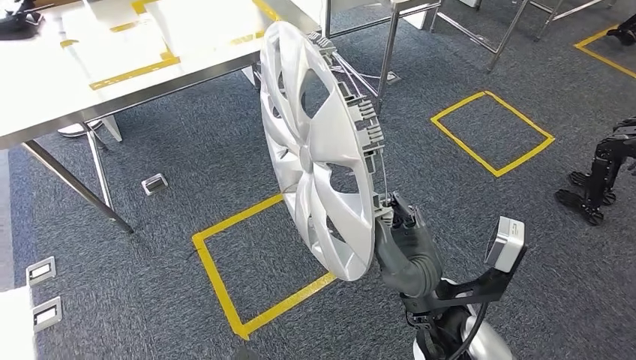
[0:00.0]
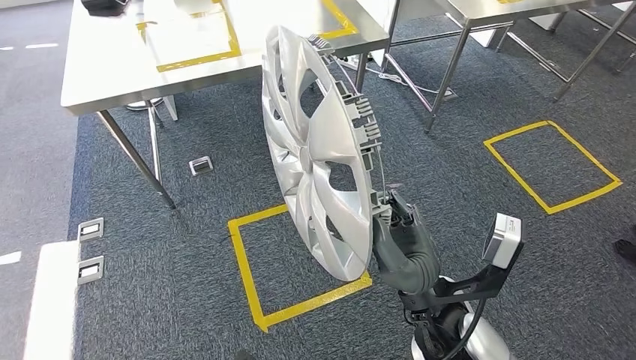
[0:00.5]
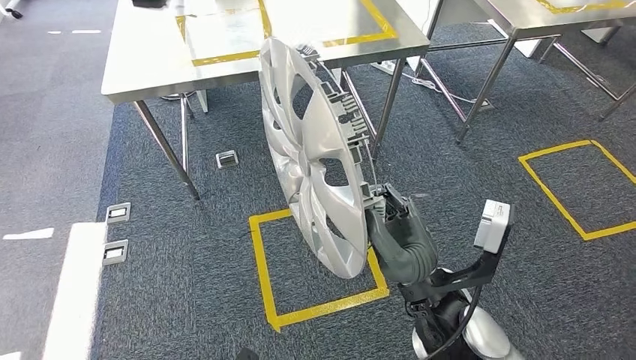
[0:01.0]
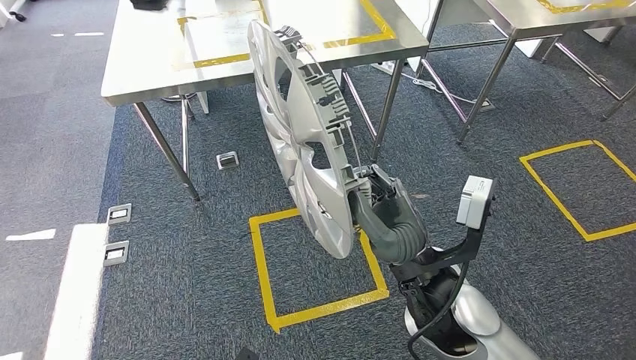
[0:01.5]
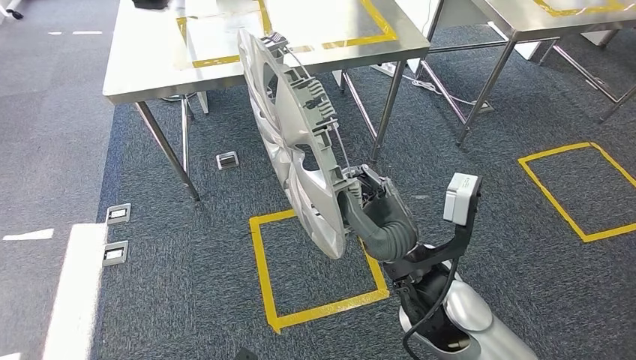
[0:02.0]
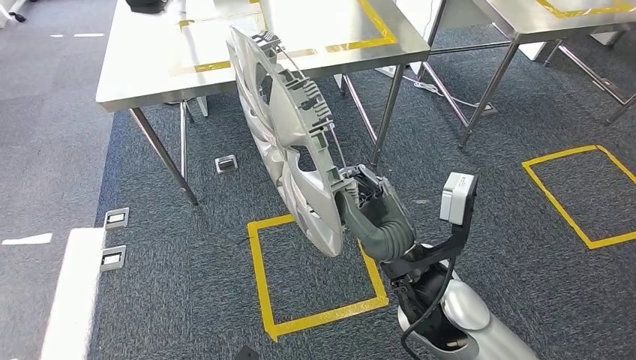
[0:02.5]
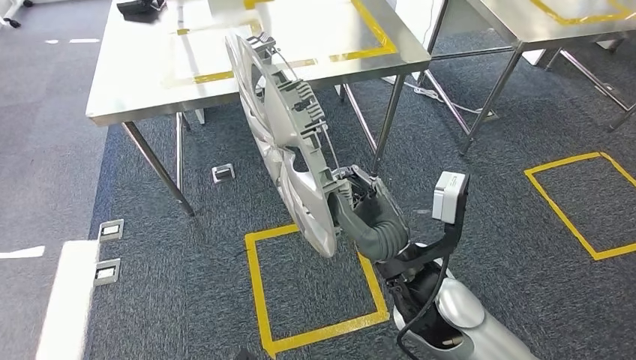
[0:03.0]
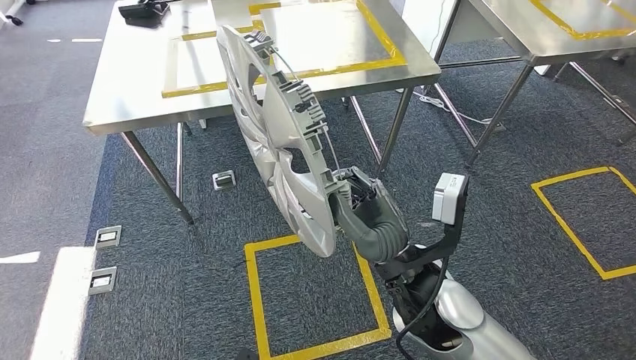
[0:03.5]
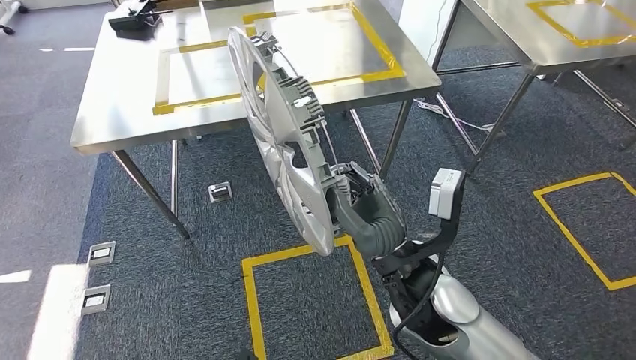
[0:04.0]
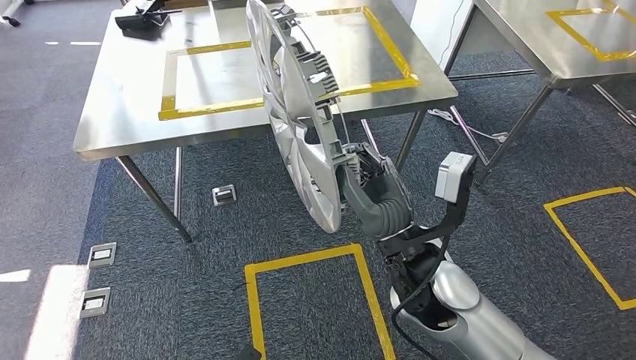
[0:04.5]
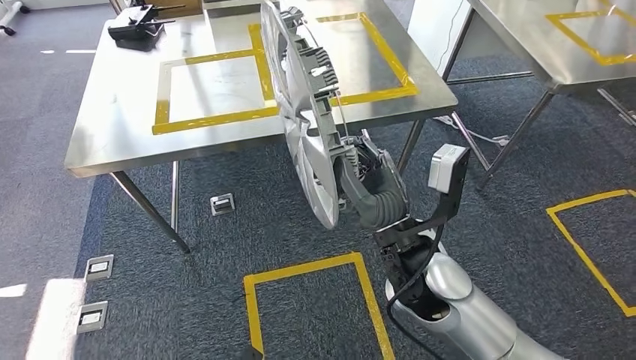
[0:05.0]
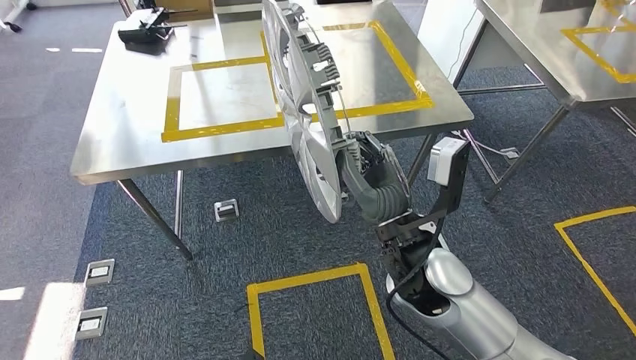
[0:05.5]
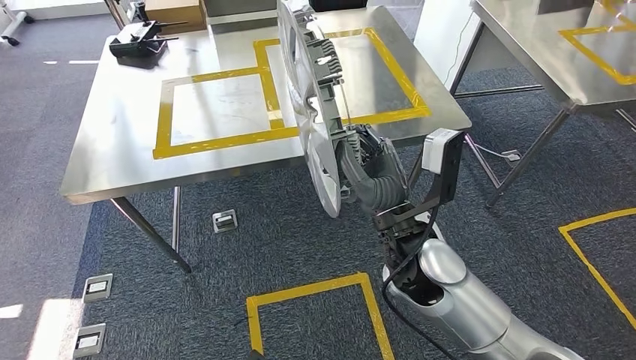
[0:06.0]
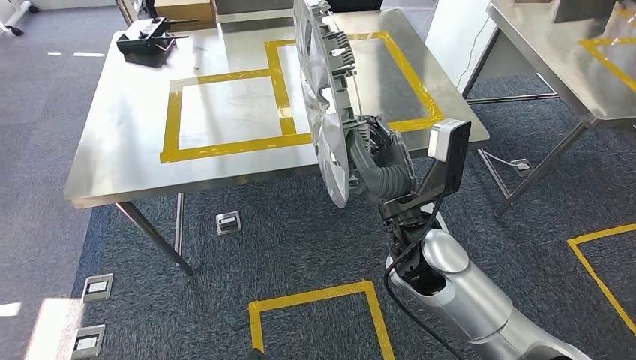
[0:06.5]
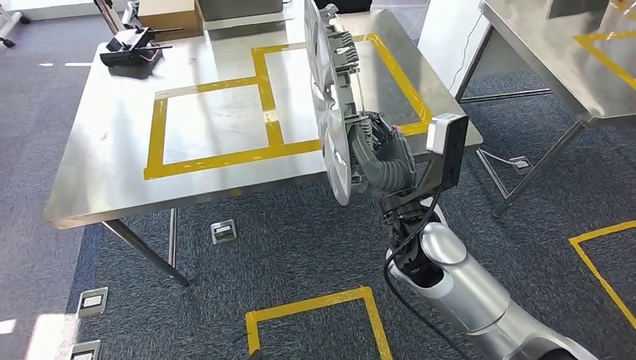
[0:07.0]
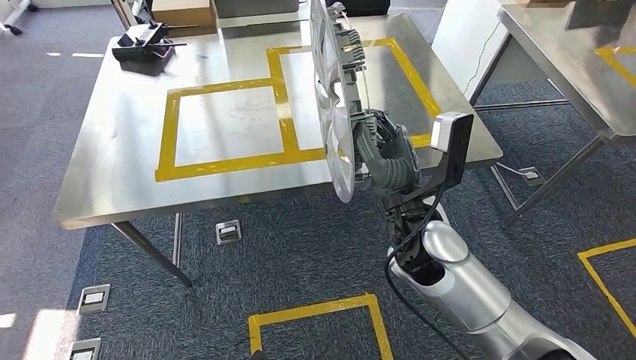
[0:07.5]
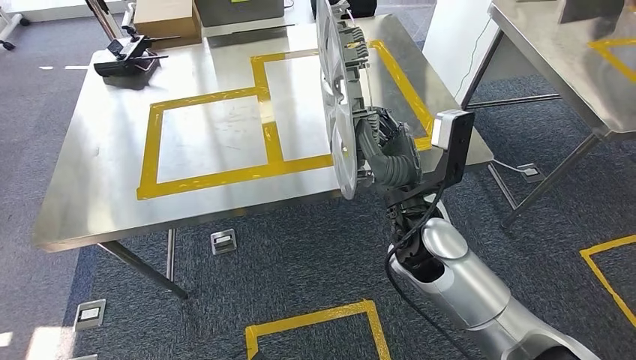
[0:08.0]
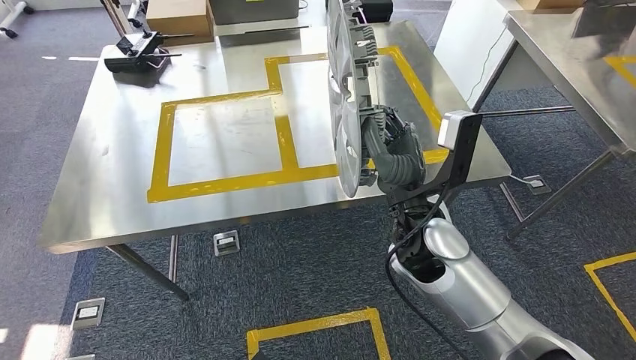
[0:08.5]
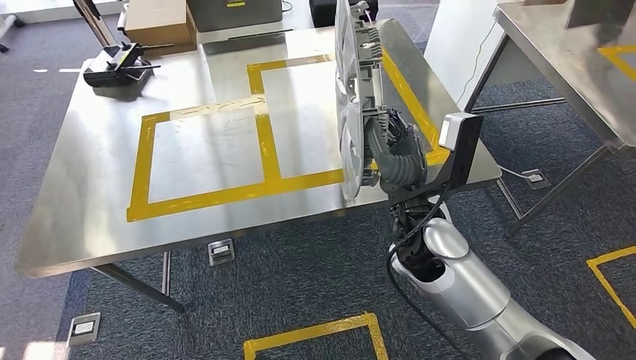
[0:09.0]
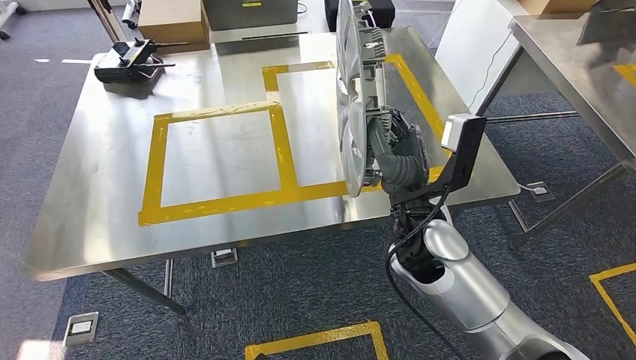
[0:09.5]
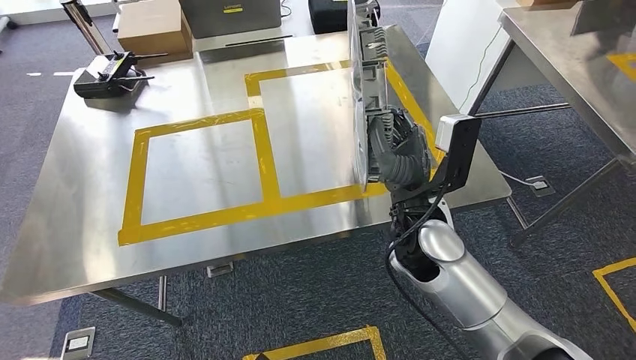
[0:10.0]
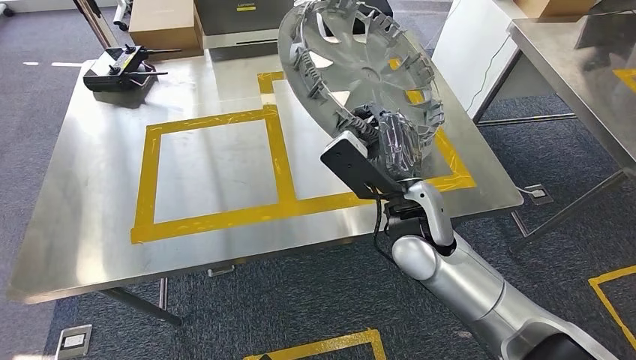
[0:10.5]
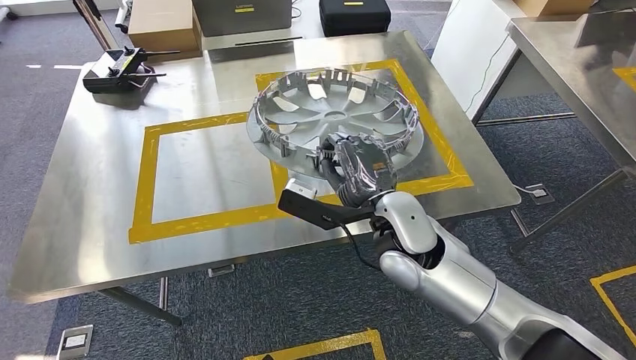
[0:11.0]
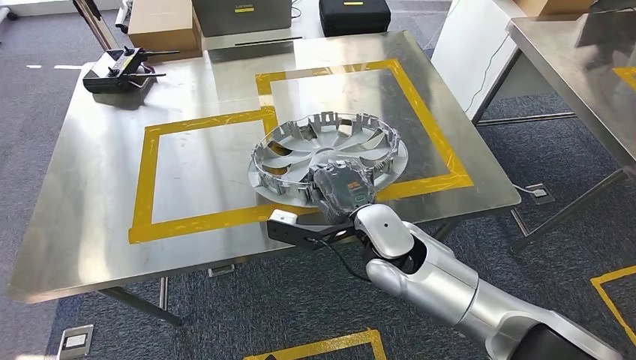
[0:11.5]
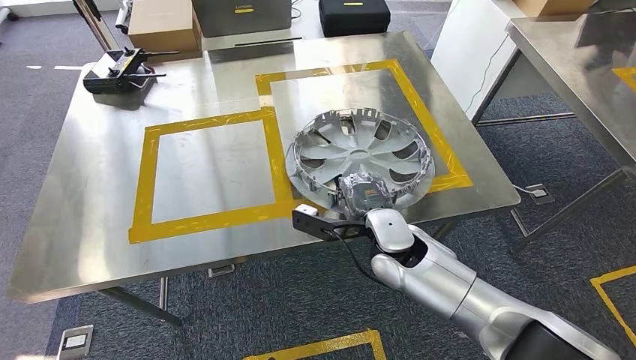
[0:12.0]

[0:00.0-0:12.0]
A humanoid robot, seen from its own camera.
Step, 0:00.0 to 0:10.5: Move the large material to the workbench.

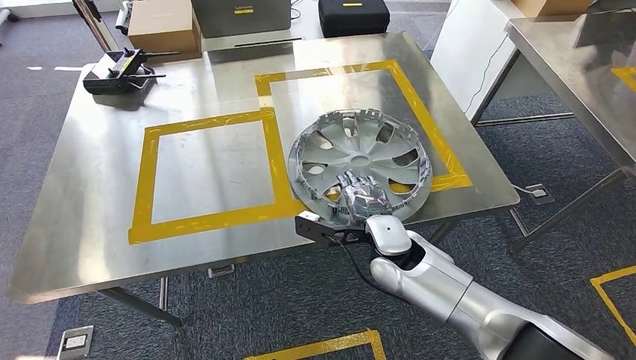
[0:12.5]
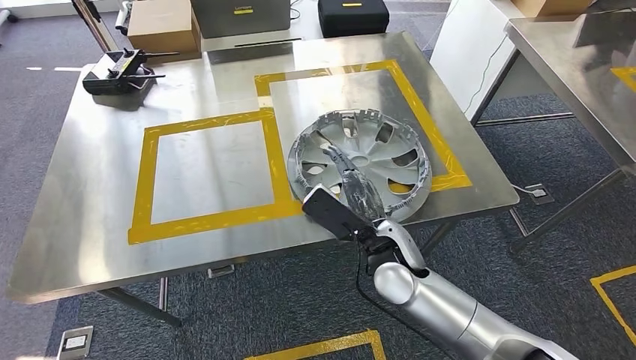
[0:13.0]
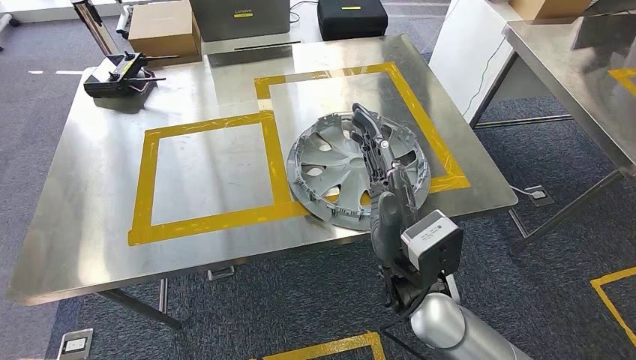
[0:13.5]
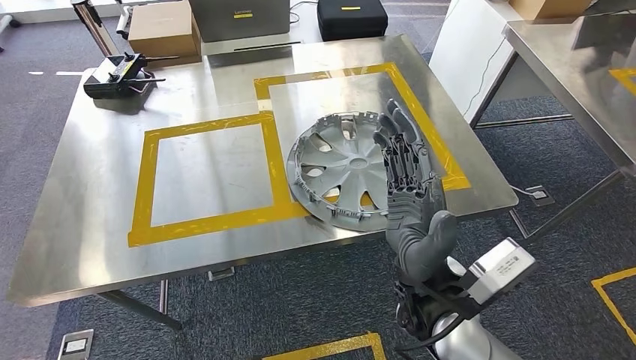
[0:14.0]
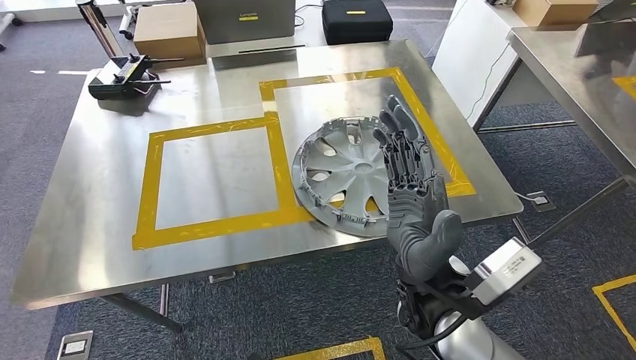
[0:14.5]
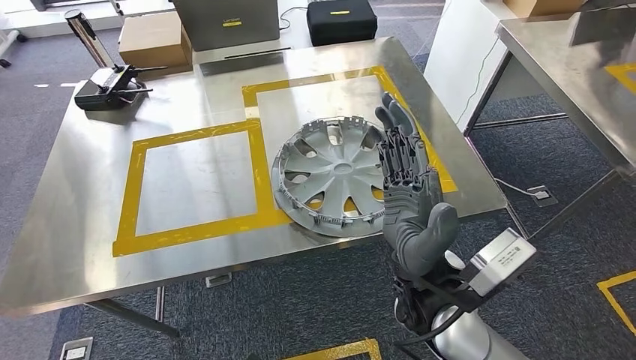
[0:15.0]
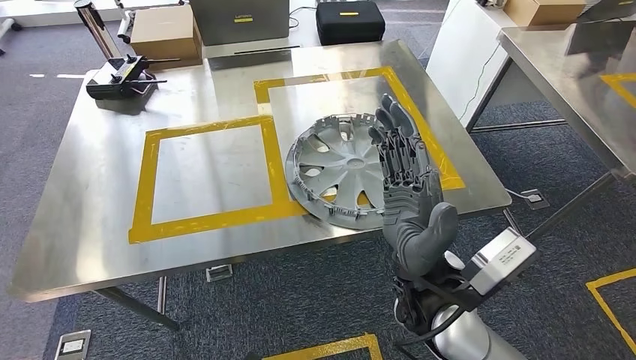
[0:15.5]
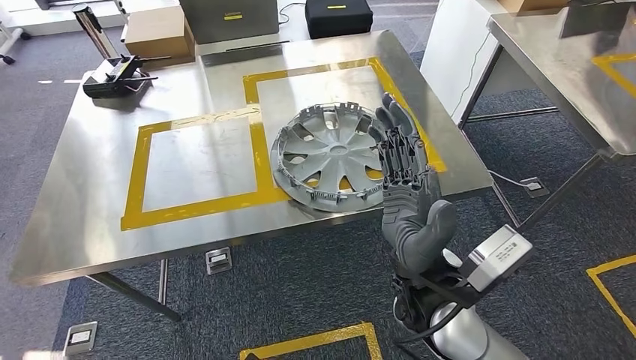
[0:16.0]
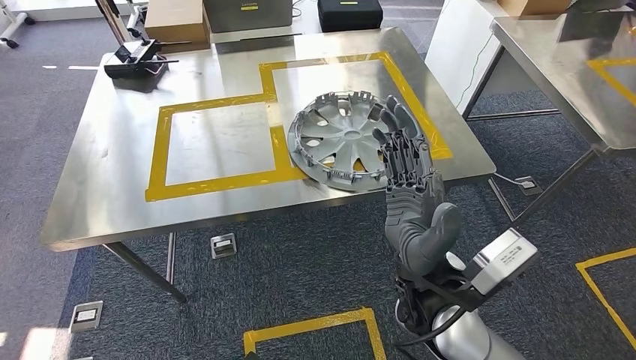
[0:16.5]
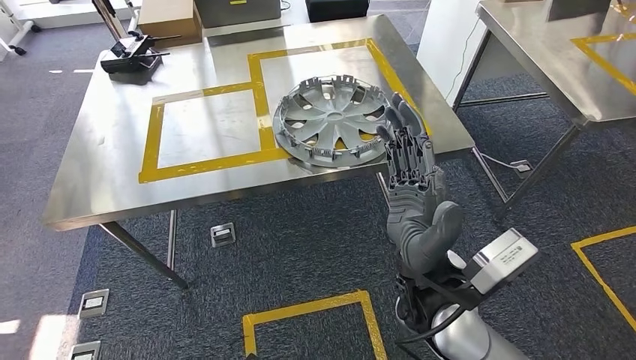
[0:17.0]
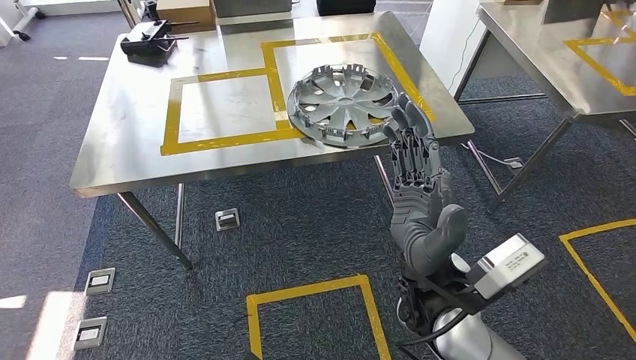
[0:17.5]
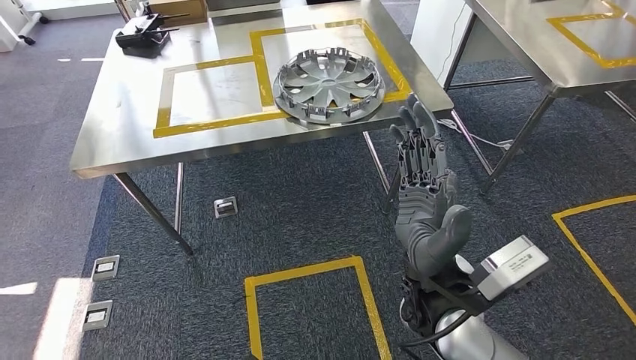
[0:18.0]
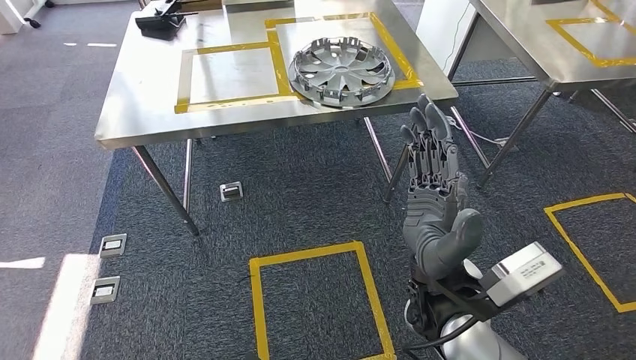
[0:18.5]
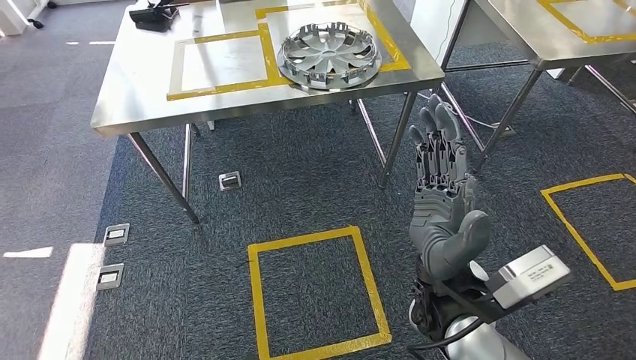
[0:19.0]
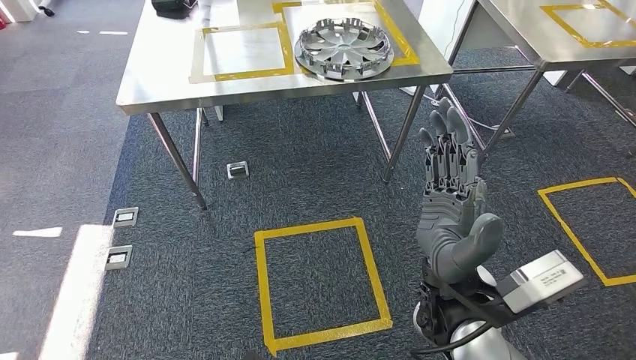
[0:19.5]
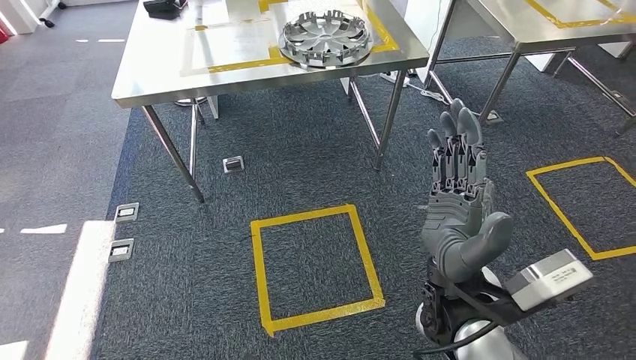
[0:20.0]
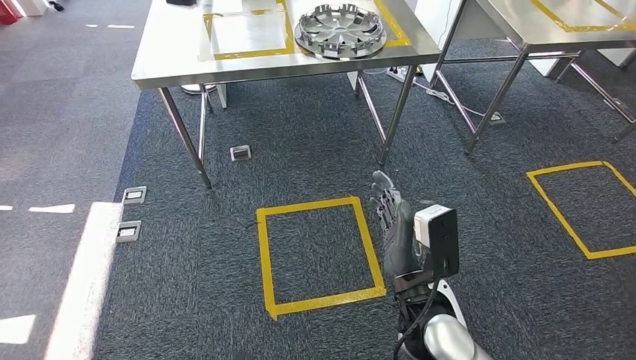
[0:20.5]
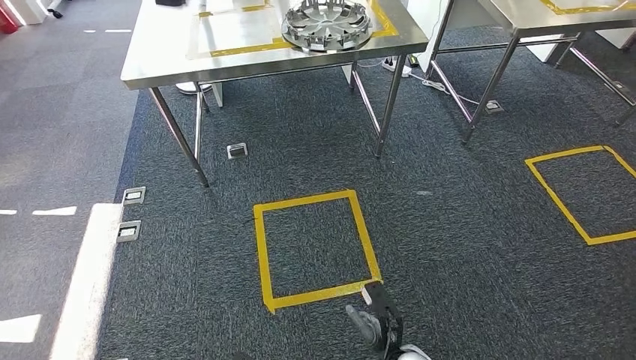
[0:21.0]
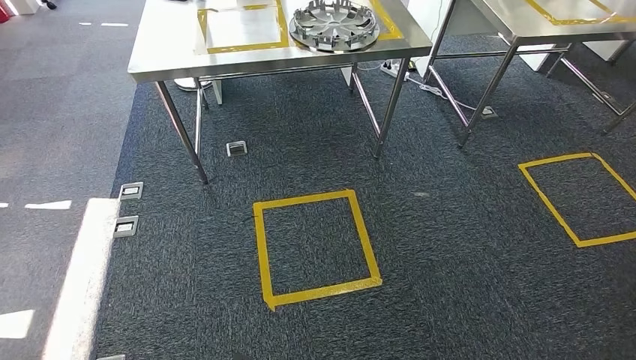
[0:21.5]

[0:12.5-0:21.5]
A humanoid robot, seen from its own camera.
Step, 0:14.0 to 0:21.5: Move to the initial position of the shelf.
